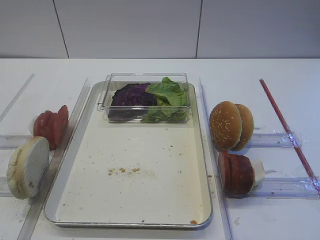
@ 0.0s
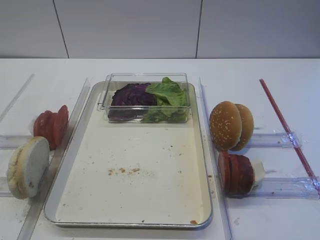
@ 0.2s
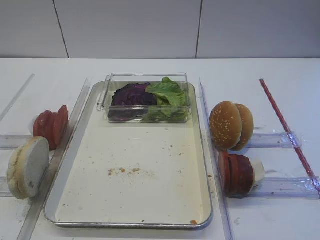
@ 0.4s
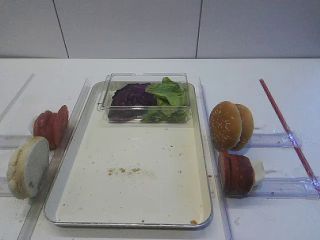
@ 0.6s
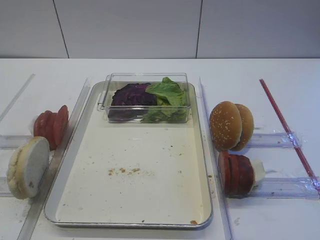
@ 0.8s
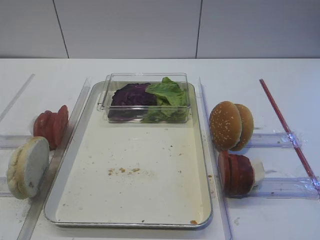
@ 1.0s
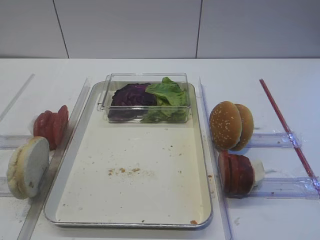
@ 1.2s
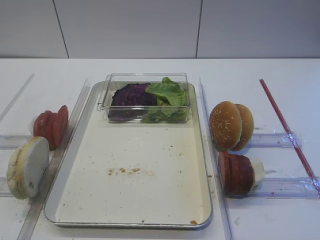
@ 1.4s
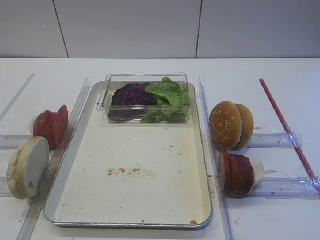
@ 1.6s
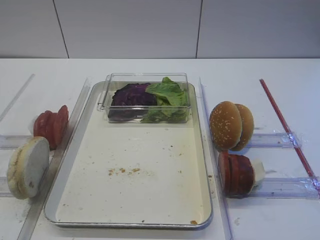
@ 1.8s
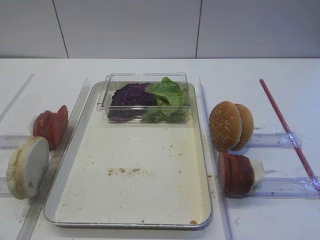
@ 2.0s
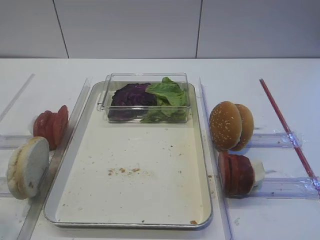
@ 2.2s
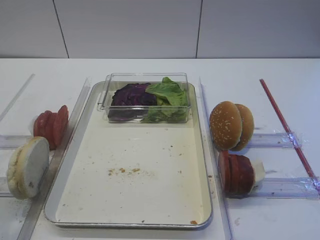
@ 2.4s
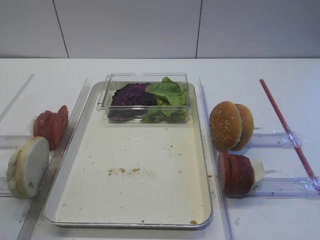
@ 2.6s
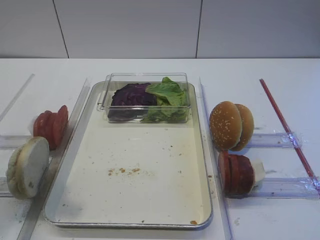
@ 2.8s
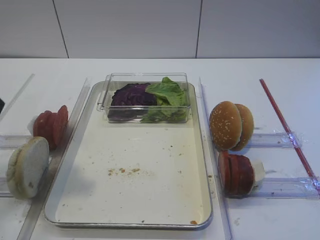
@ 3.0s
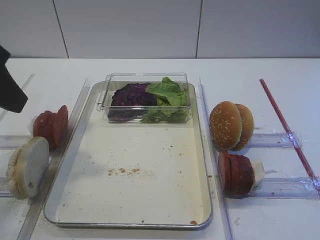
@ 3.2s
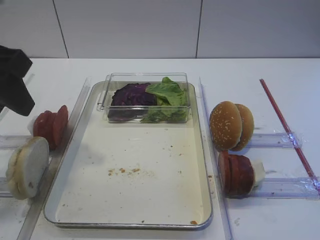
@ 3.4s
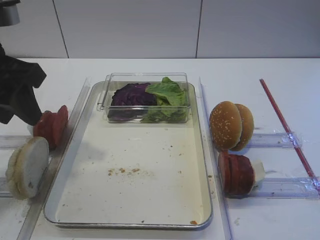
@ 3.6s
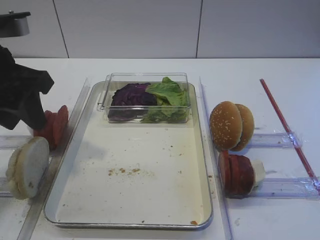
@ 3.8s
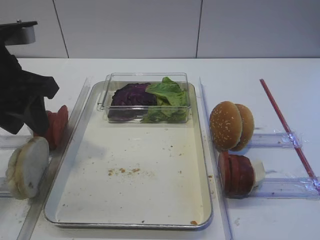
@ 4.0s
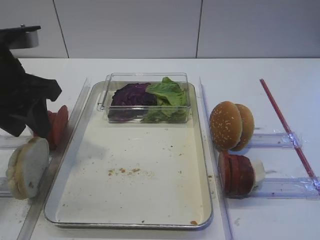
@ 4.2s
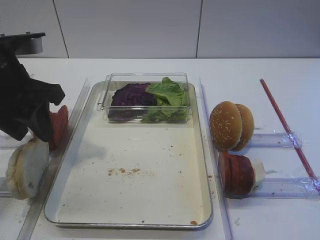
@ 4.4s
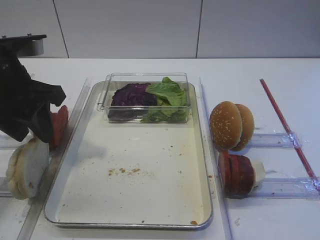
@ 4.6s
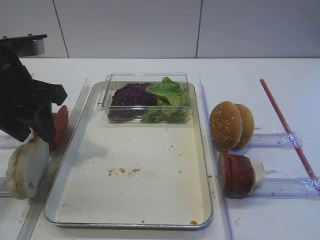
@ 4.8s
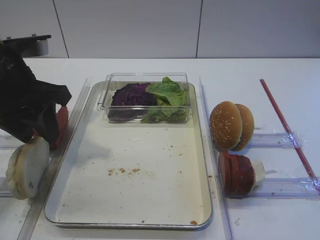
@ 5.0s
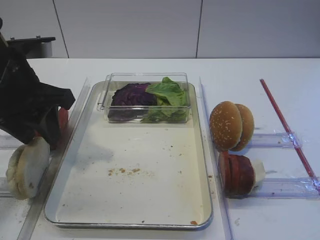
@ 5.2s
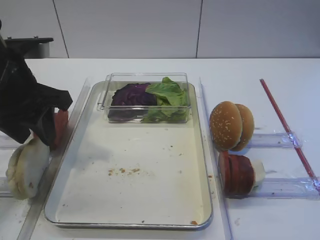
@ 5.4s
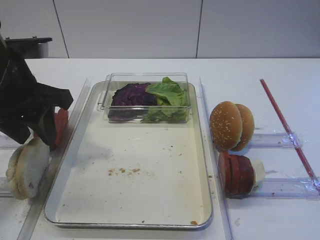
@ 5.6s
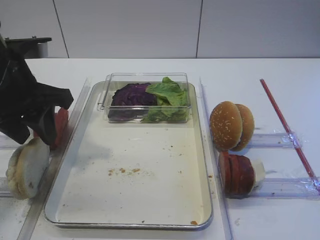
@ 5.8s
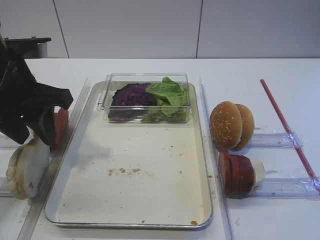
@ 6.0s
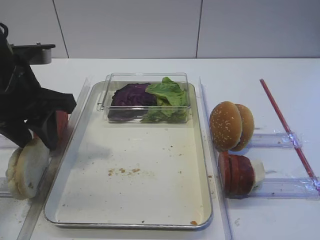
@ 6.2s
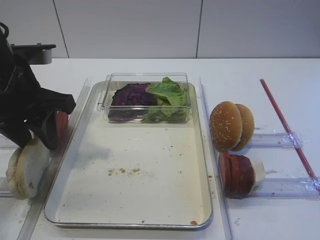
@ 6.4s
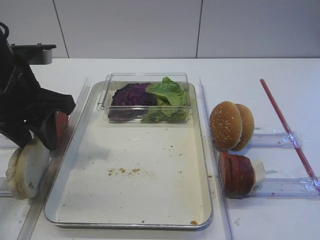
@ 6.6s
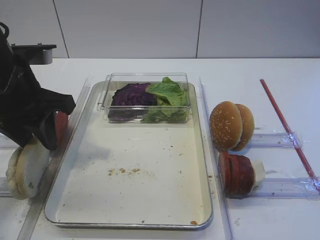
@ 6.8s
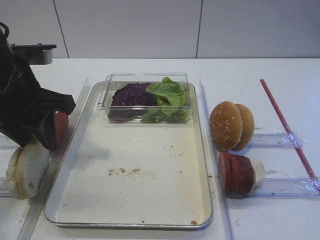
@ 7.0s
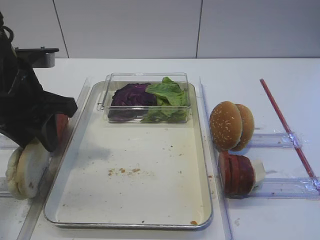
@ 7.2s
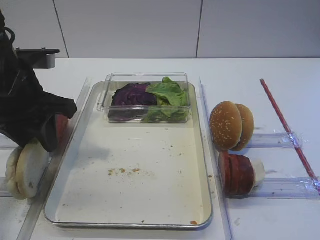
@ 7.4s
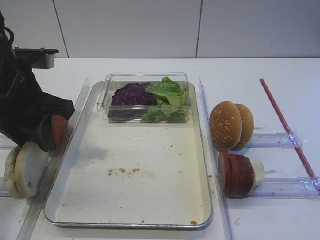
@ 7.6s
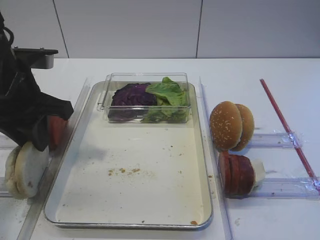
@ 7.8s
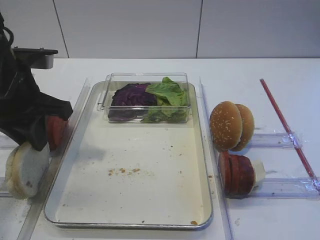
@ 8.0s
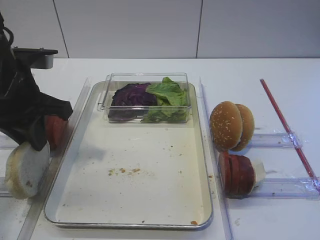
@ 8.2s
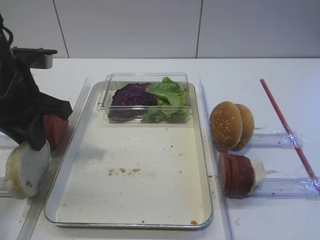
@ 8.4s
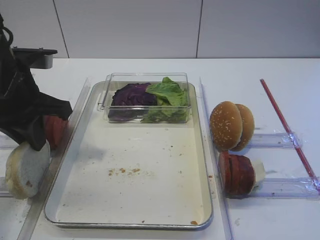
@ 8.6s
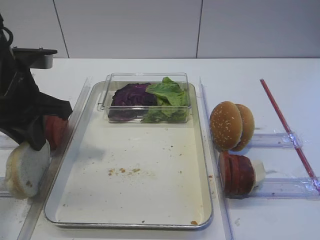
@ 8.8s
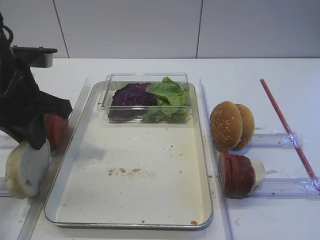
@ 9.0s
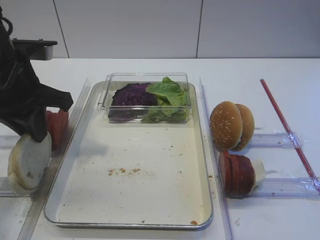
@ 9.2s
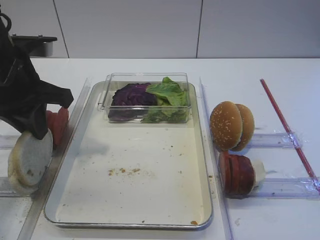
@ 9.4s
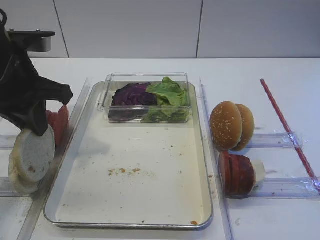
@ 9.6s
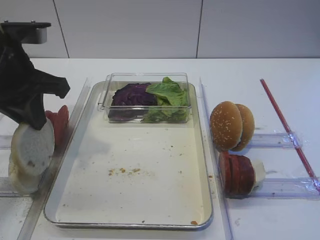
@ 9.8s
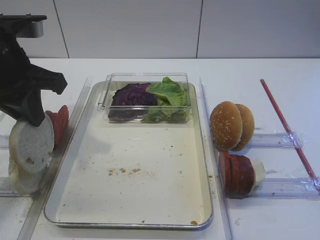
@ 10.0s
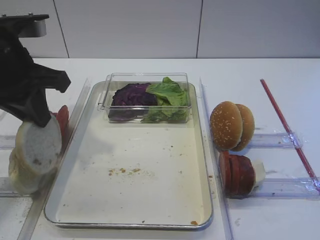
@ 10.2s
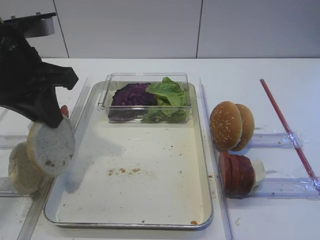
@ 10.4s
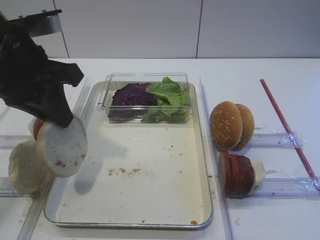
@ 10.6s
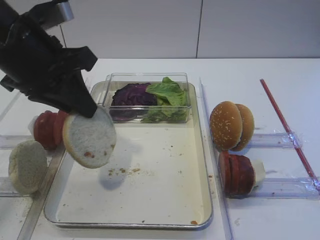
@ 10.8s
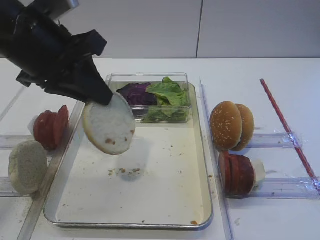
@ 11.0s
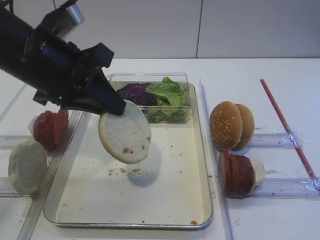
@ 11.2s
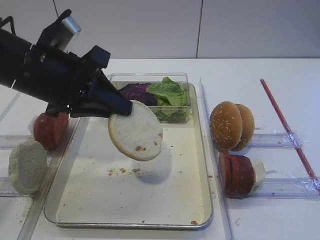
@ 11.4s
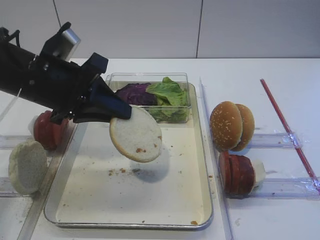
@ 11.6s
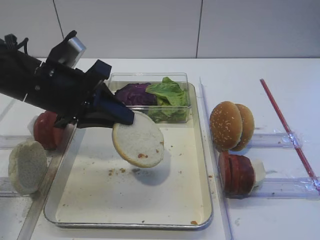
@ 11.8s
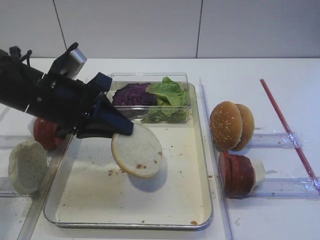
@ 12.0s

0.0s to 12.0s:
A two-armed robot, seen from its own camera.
Step, 0.0s to 10.2s: Pick up the bread slice with the left gripper.
1.6s to 3.0s: The left gripper is displaced forward and upward by roughly 20 cm, and closes up.
3.0s to 4.4s: The left gripper moves forward and downward, about 15 cm.
4.4s to 6.0s: The two grippers keep their place.
6.0s to 7.6s: The grippers stay close to where they were, moving slightly.
7.6s to 9.0s: The left gripper closes.
9.0s to 10.4s: The grippers move only a little.
10.4s to 12.0s: The left gripper is displaced downward by some 10 cm.

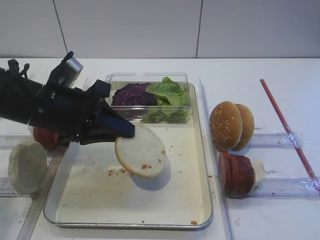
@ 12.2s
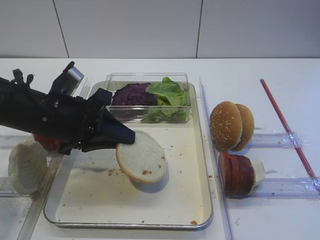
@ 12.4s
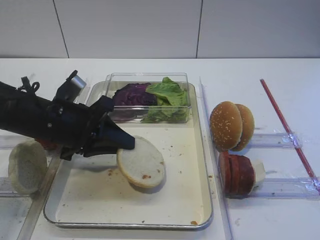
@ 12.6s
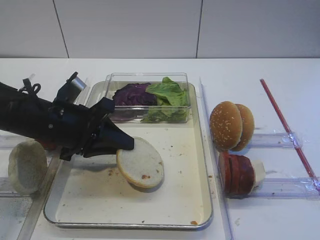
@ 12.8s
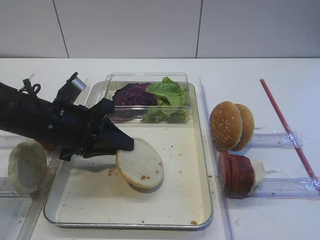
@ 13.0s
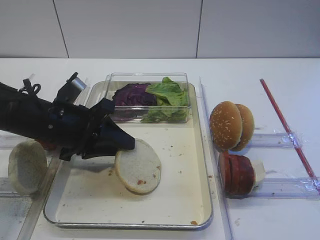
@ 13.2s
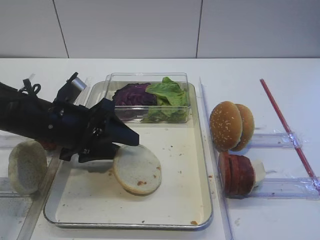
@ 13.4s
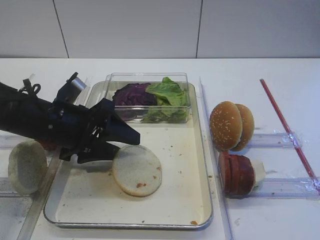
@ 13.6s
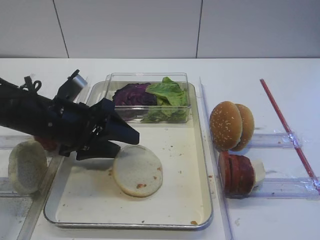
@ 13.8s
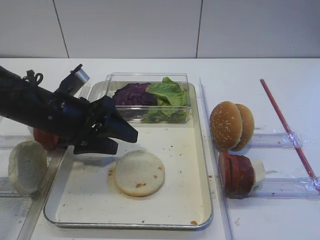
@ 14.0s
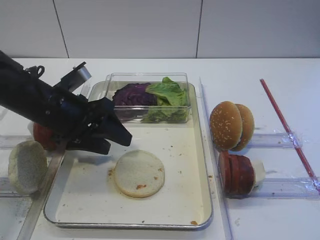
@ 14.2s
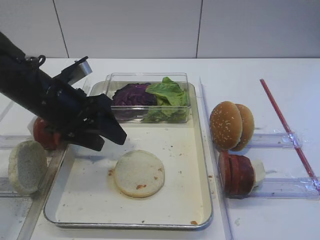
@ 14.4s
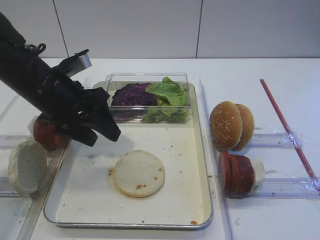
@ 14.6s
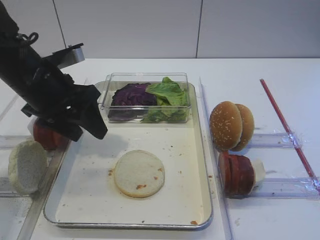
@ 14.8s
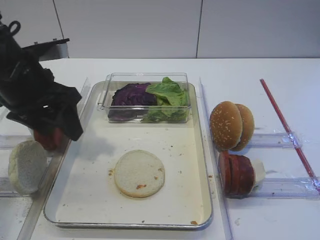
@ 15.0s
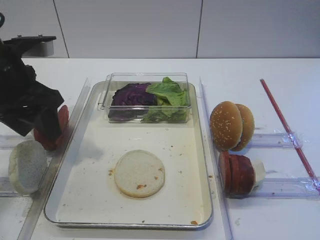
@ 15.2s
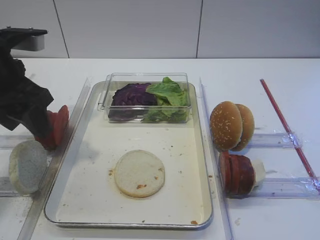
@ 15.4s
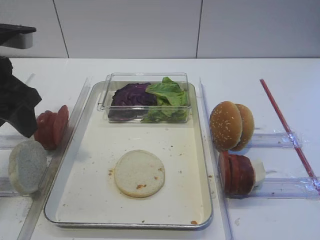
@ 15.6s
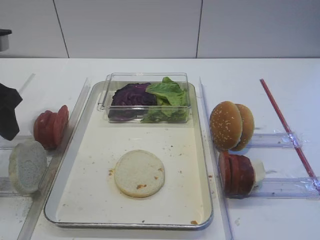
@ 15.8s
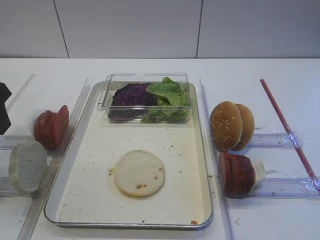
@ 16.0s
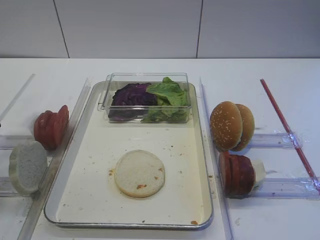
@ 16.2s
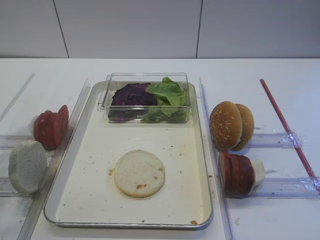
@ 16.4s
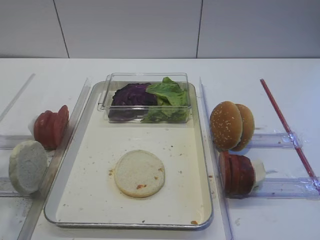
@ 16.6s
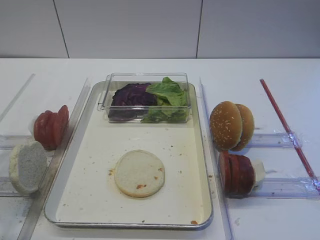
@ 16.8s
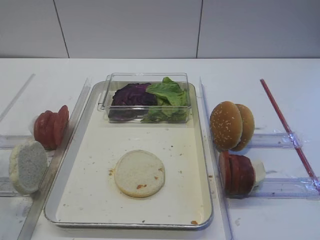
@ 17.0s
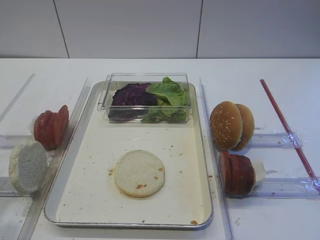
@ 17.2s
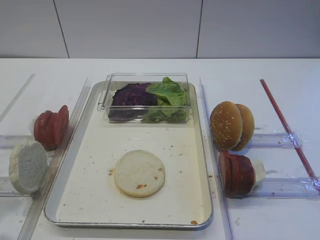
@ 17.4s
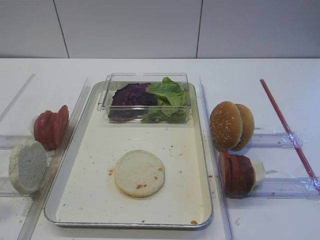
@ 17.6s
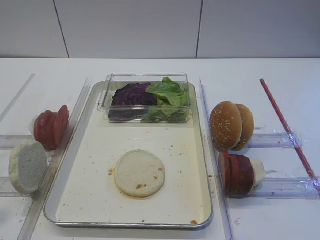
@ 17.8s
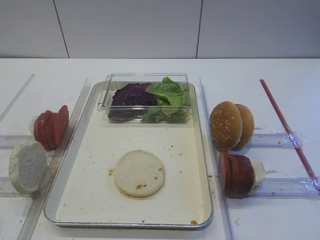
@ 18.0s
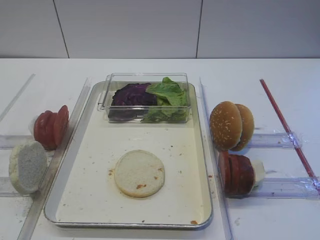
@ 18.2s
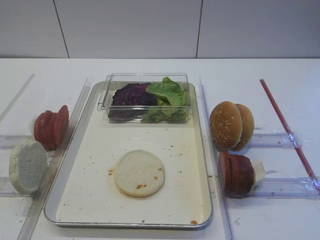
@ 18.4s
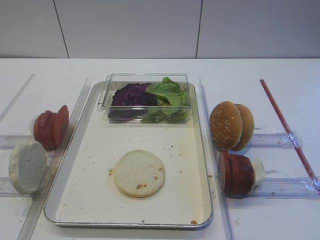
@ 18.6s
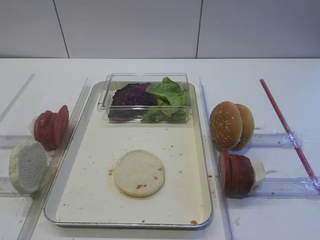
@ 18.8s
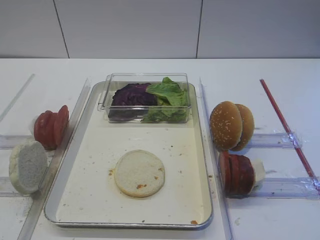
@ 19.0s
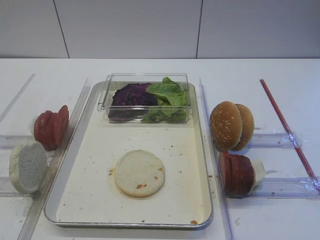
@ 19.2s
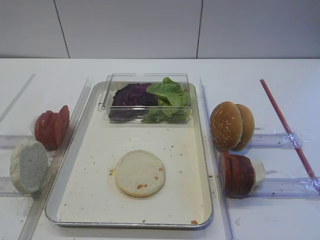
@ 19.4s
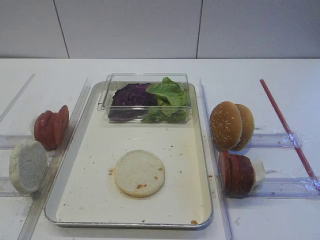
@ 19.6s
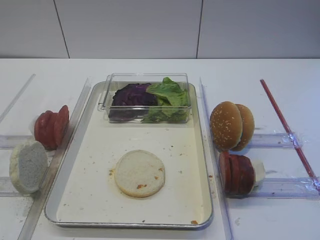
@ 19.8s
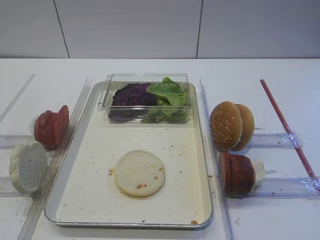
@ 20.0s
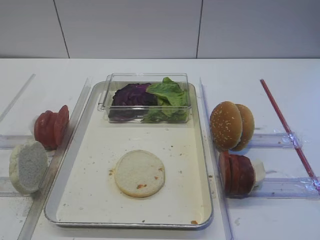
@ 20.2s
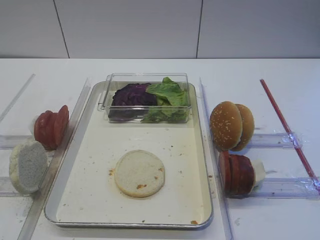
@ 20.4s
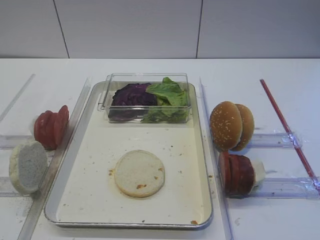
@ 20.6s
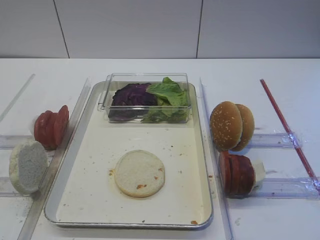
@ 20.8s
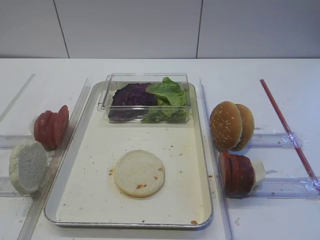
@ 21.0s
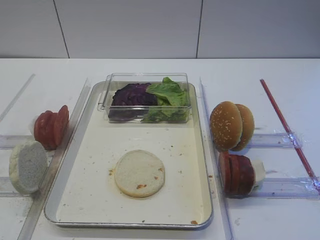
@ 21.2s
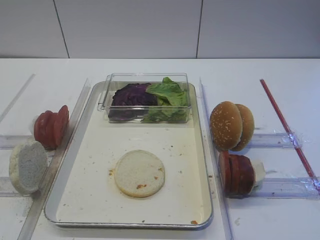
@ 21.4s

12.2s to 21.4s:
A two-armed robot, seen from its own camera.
Step, 12.2s to 14.6s: Place the bread slice on the tray with the left gripper.
12.2s to 13.8s: The left gripper opens up.
13.8s to 15.2s: The left gripper travels upward and to the left by approximately 10 cm.
15.2s to 16.8s: The left gripper is displaced backward and to the left by approximately 15 cm.
16.8s to 18.4s: The left gripper moves backward, some 15 cm.
19.8s to 21.4s: Neither gripper changes place.

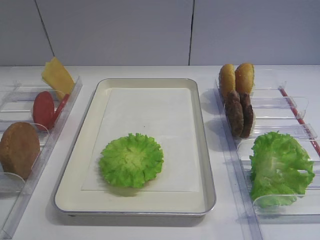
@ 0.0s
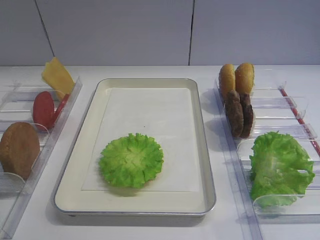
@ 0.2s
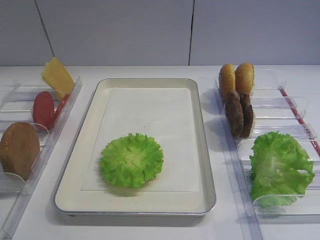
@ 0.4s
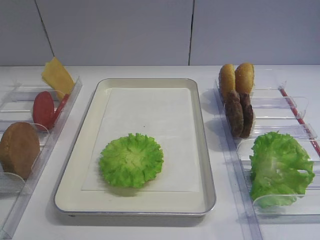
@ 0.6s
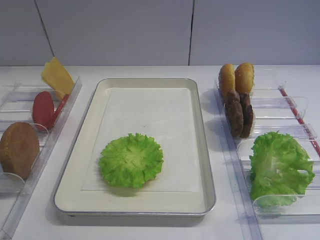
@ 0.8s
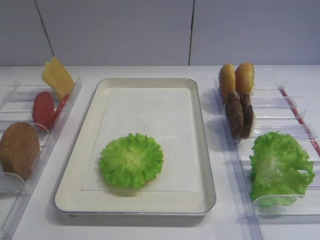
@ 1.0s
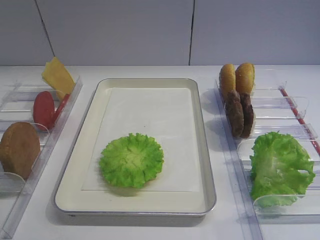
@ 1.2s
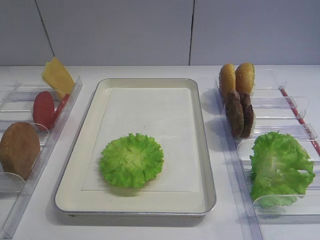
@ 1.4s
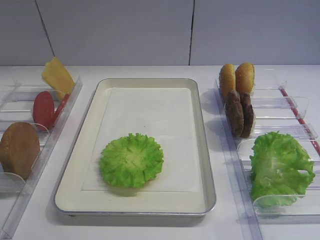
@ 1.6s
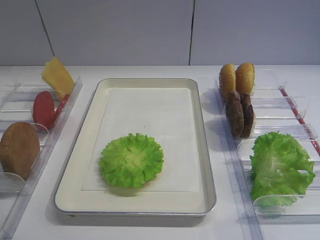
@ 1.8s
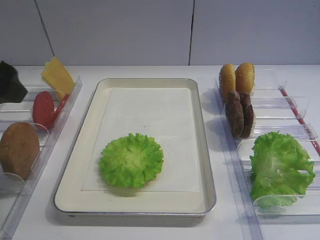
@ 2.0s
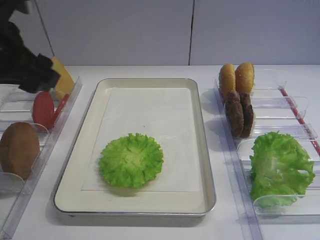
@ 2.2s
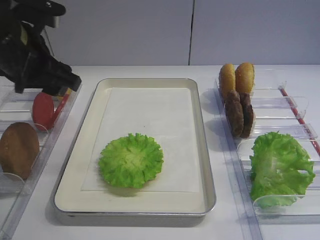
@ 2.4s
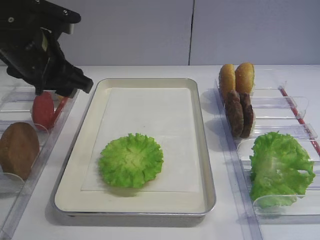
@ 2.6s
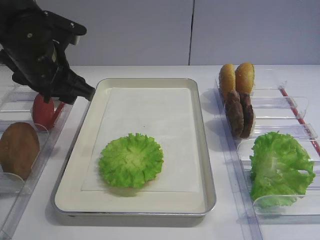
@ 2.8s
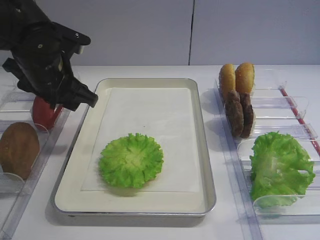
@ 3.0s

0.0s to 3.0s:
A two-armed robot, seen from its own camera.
1.6s to 3.0s: The left gripper moves forward, downward and to the right, roughly 30 cm.
